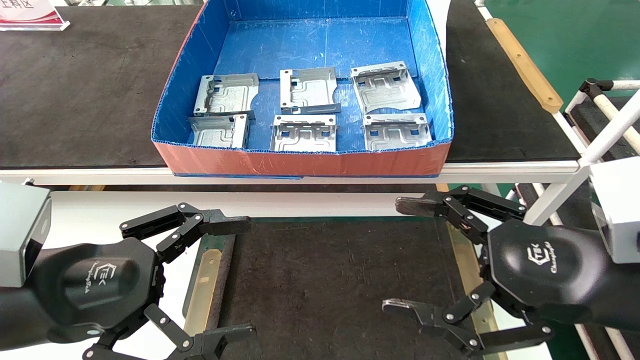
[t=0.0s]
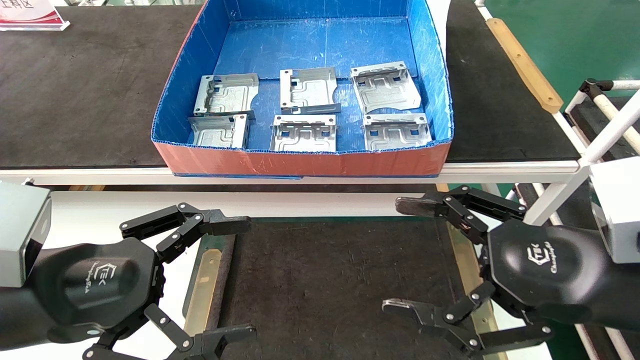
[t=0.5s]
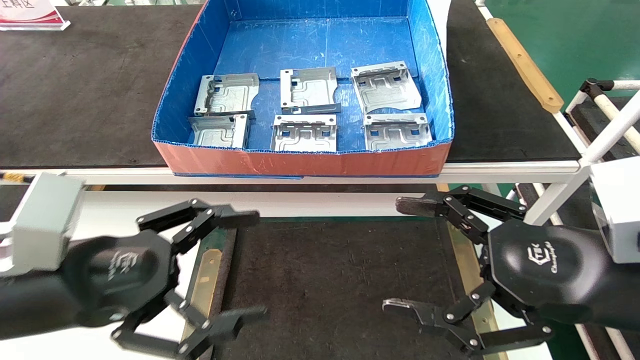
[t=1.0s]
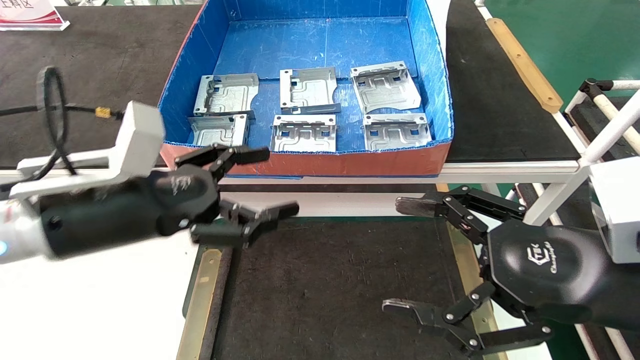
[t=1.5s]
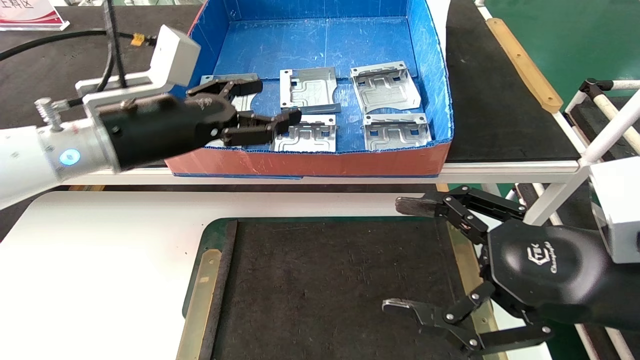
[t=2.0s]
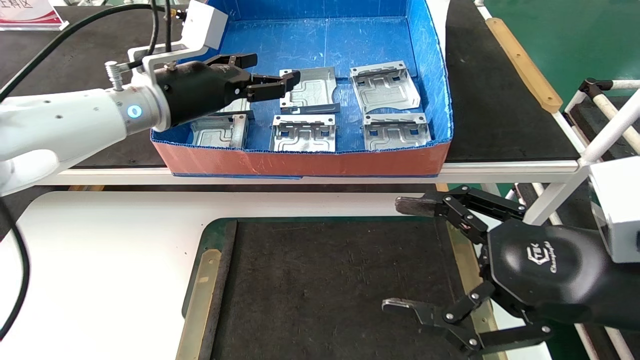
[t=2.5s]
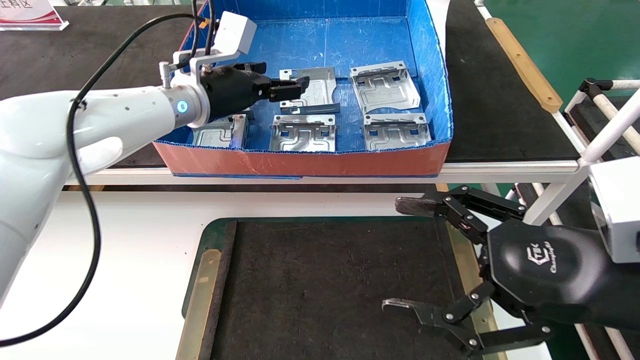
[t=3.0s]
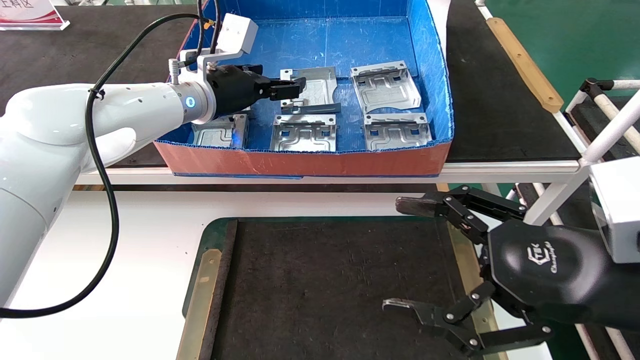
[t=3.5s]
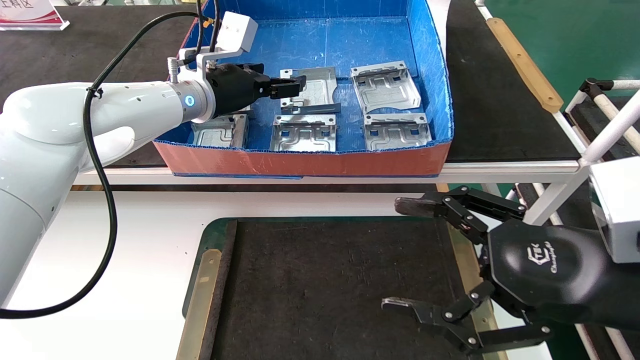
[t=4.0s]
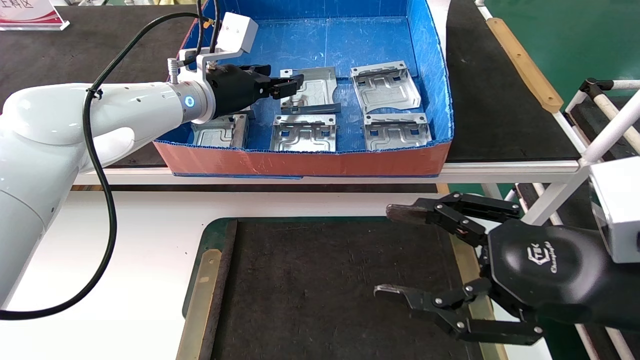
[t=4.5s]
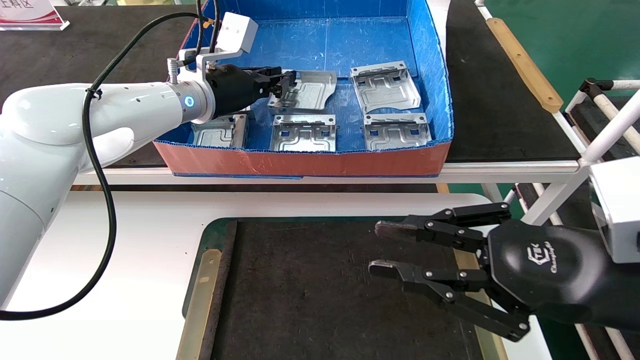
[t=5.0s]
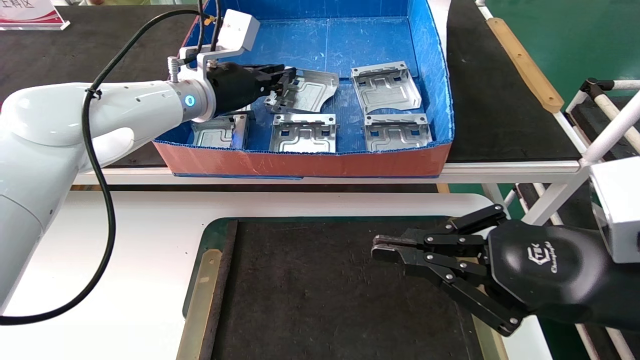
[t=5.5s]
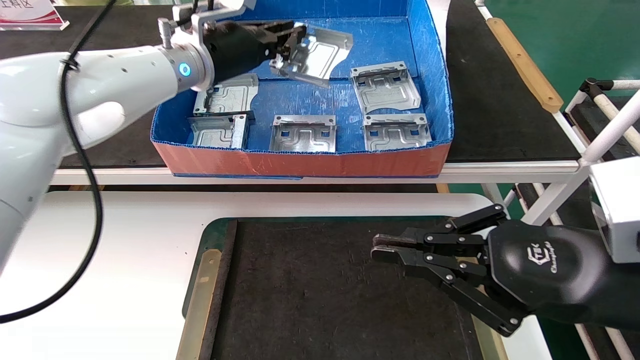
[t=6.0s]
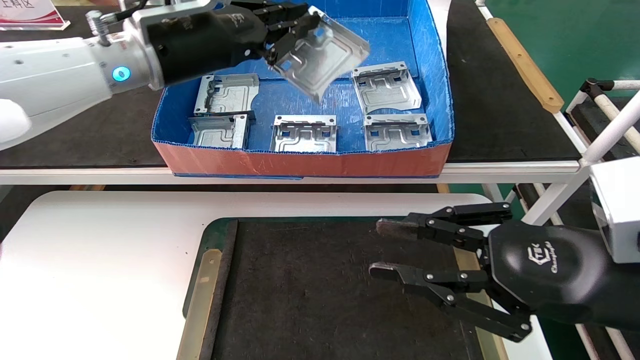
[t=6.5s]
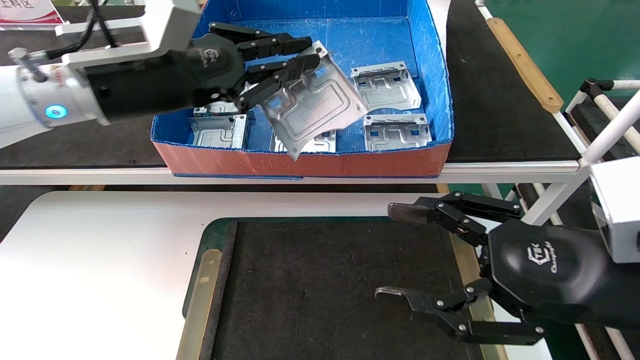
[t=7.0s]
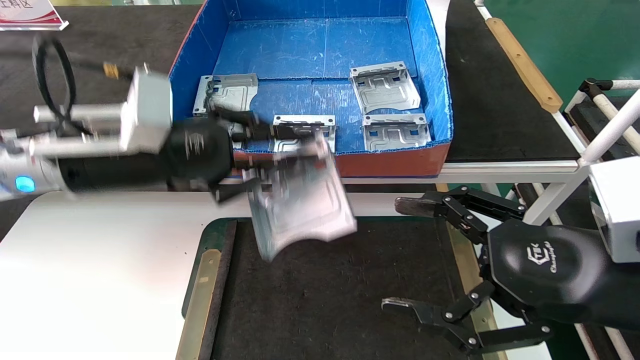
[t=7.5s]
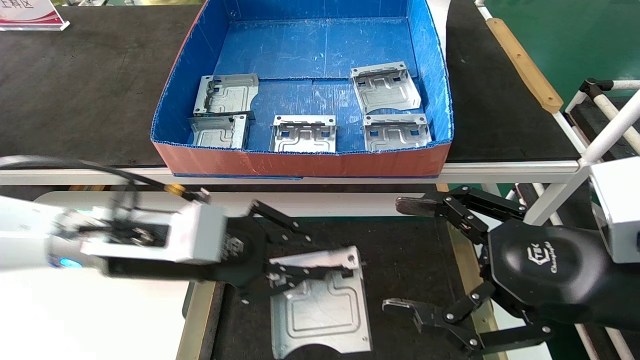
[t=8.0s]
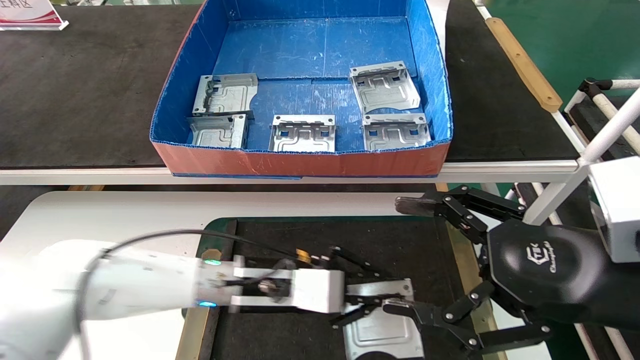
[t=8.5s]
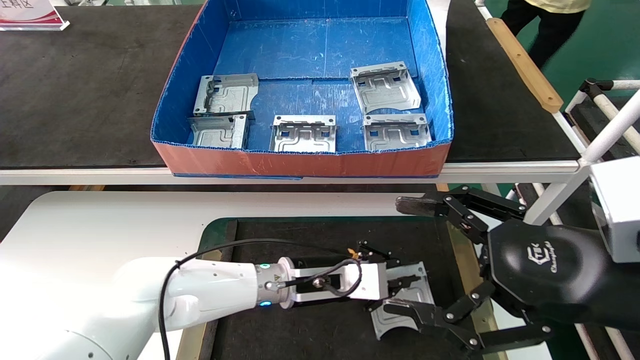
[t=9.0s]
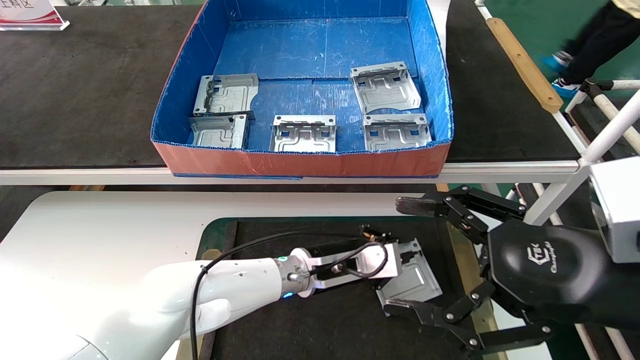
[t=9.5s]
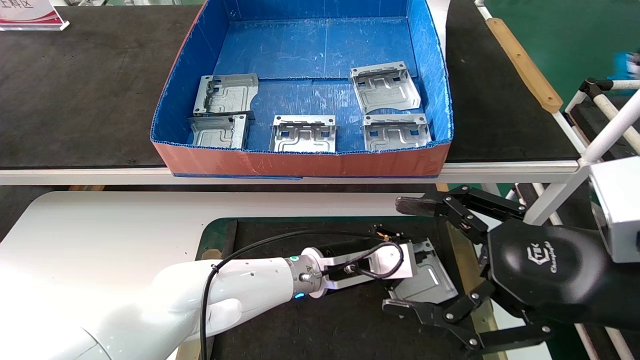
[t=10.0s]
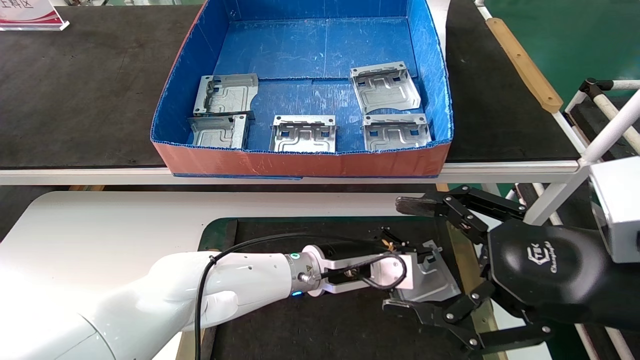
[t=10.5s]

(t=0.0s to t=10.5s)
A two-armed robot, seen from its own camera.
Task of the whole recording: take the accessories out of the box and place them on the table.
Step, t=1.5s - t=5.0s: Pick up the hard drive bracket from the feeding area.
t=0.0s - t=2.0s: The left gripper is displaced forward and upward by some 20 cm.
t=2.0s - t=4.0s: The left gripper shifts some 15 cm forward and to the right.
t=4.0s - t=6.5s: The left gripper travels backward by approximately 10 cm, and closes its fingers. The right gripper closes.
t=6.5s - t=8.5s: The left gripper goes about 25 cm downward. The right gripper opens up.
t=8.5s - t=10.5s: The left gripper moves to the right, approximately 10 cm.

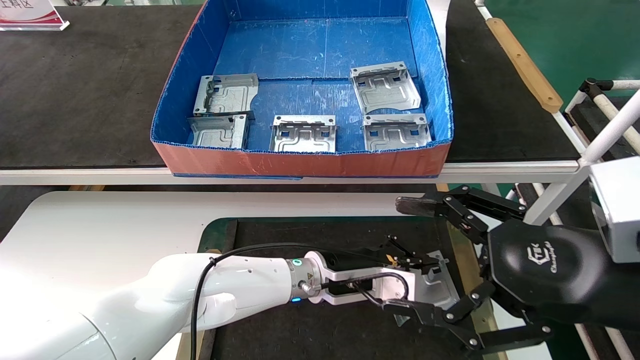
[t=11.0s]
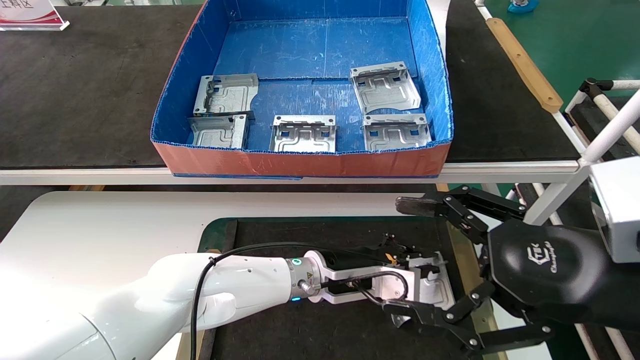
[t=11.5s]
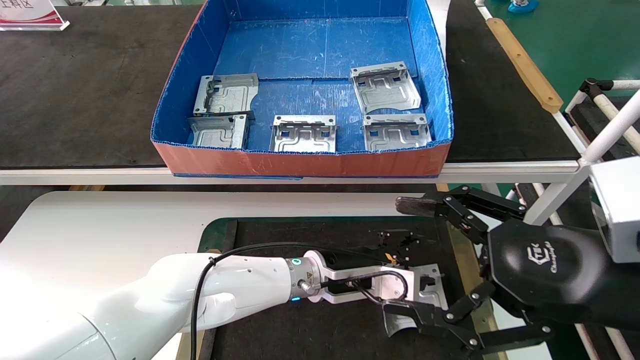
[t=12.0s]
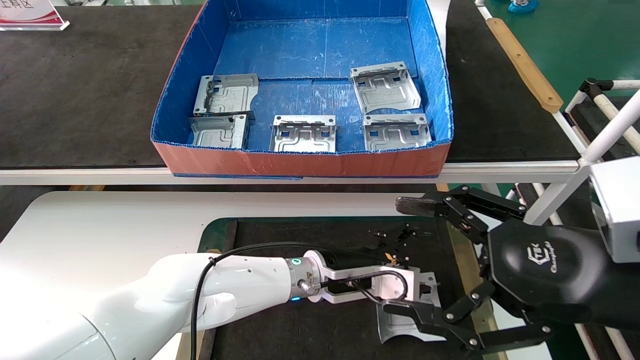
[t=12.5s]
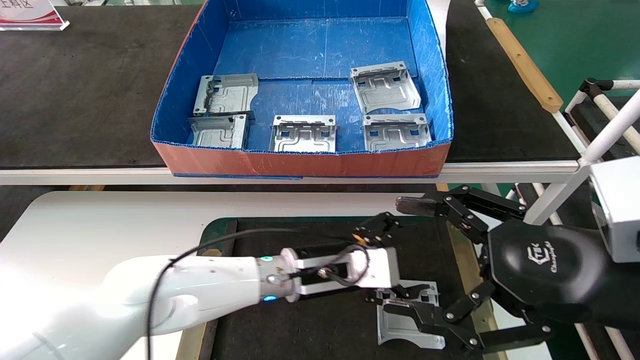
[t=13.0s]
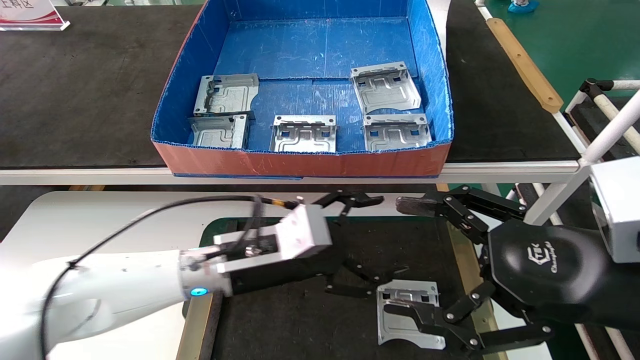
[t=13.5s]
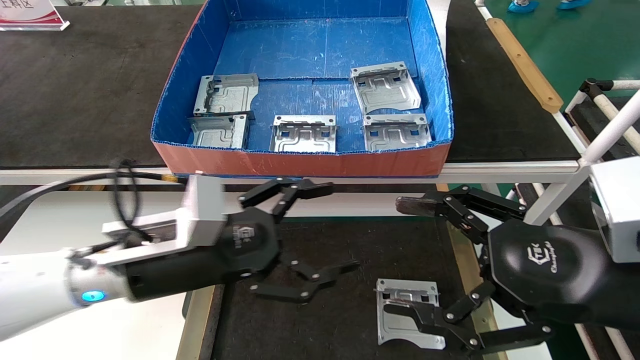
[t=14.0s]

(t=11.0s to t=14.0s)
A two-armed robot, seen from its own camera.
Task of the whole recording: take the accessories out of the box and place them on the table.
t=11.0s - t=12.5s: The left gripper opens its fingers.
t=12.5s - t=14.0s: The left gripper shifts roughly 25 cm to the left, backward and upward.

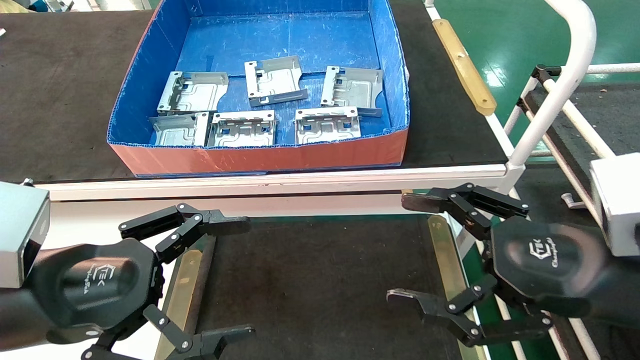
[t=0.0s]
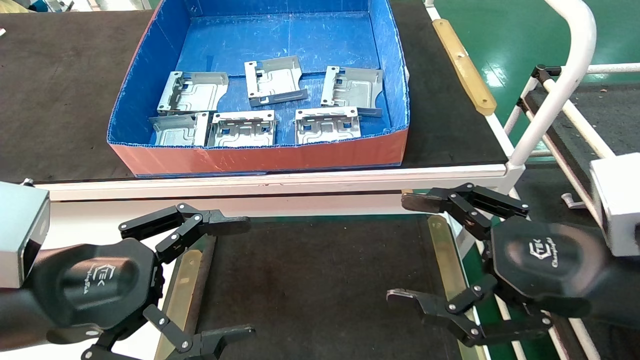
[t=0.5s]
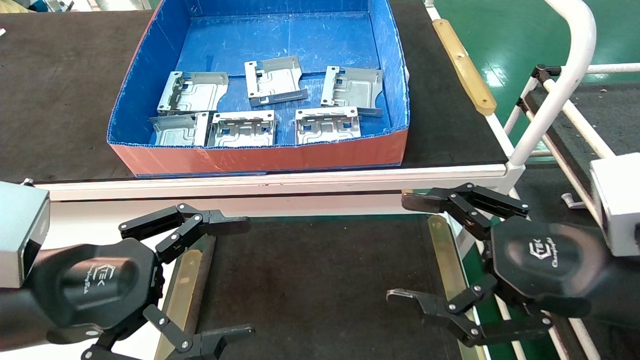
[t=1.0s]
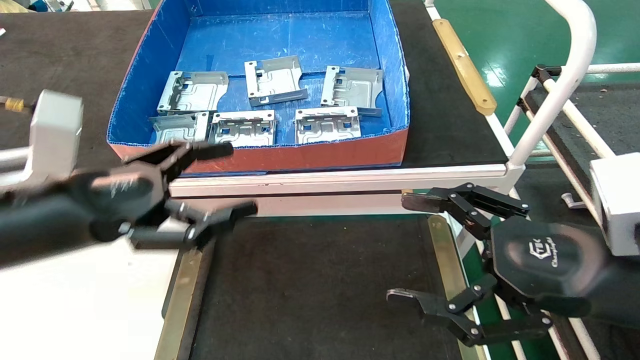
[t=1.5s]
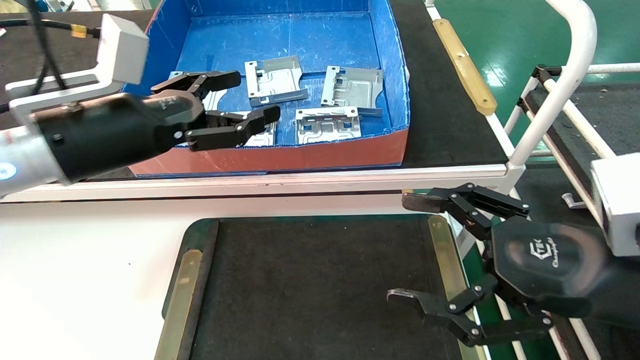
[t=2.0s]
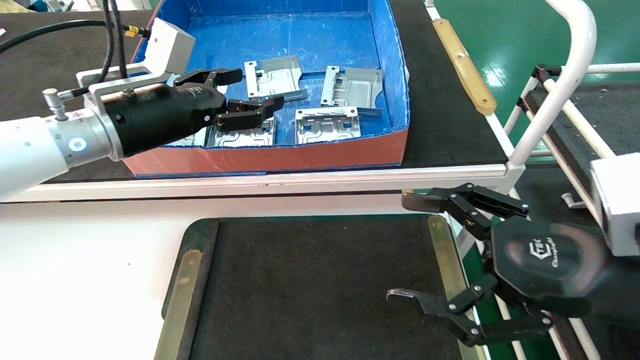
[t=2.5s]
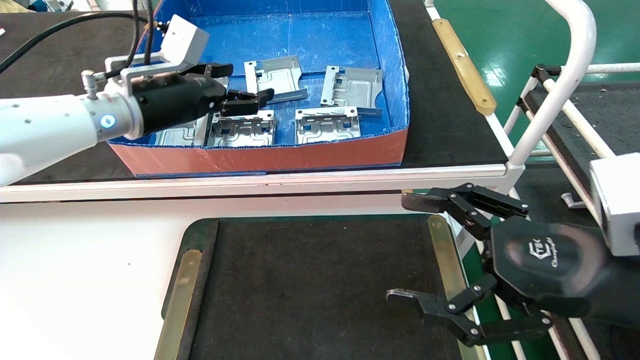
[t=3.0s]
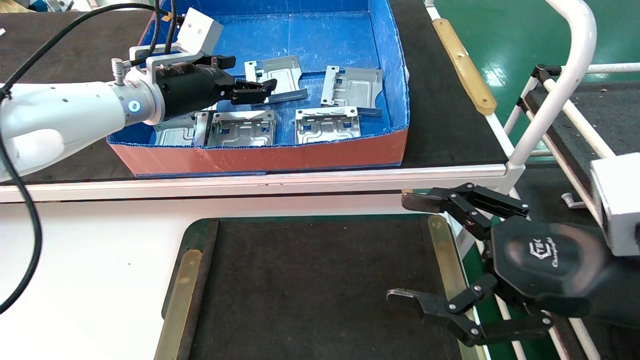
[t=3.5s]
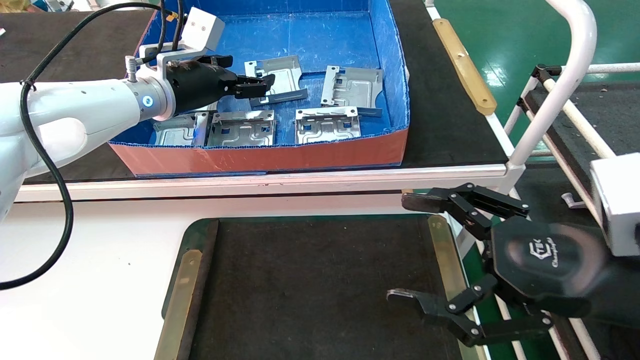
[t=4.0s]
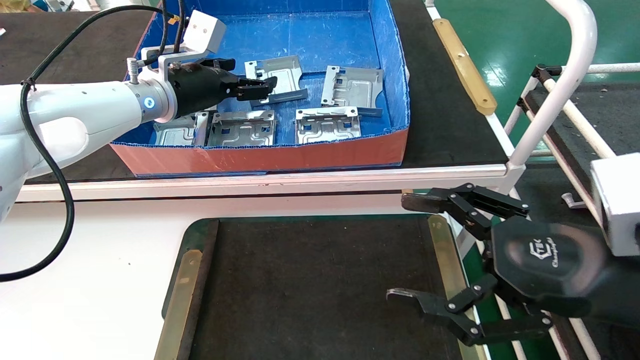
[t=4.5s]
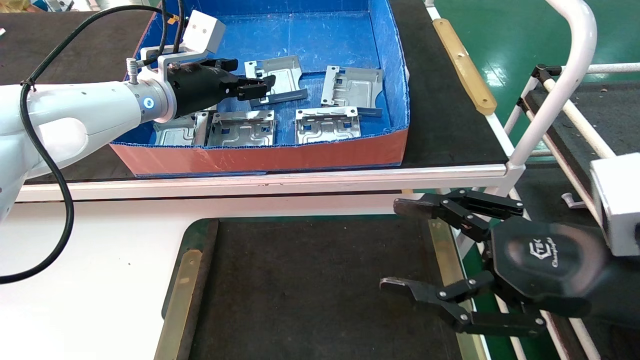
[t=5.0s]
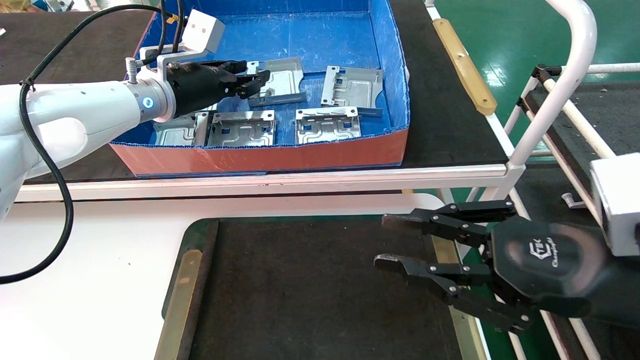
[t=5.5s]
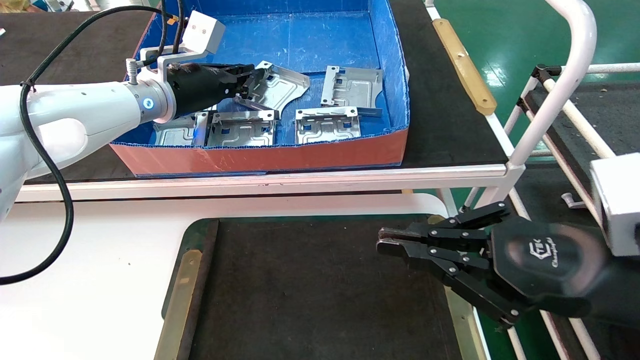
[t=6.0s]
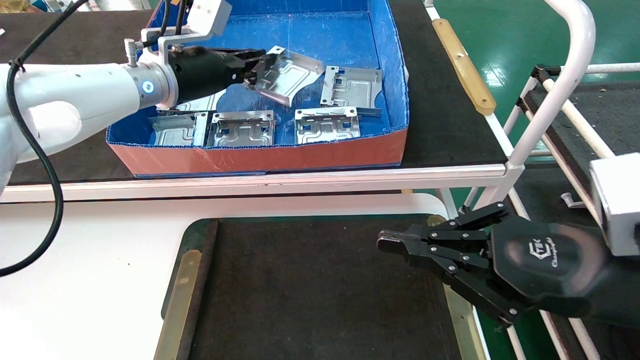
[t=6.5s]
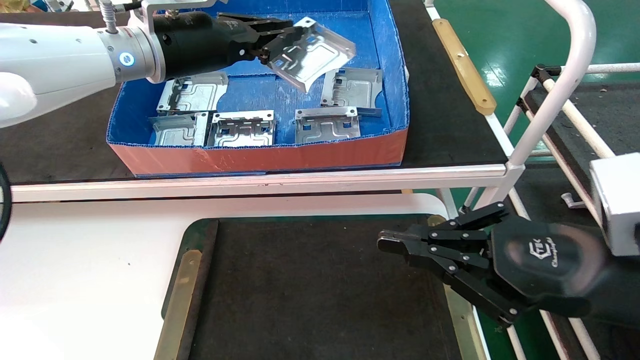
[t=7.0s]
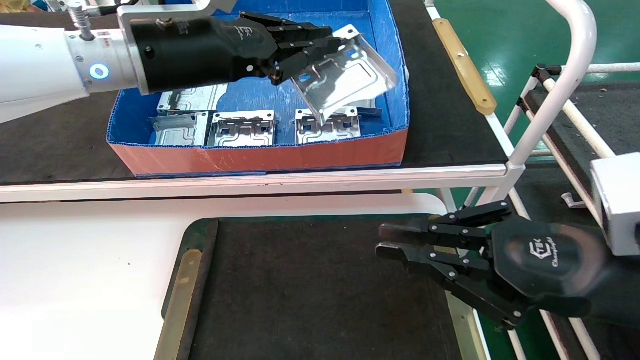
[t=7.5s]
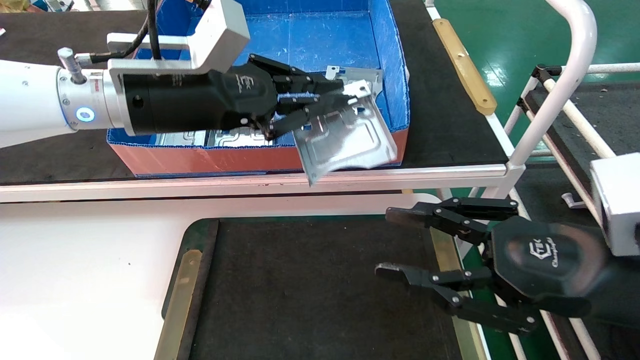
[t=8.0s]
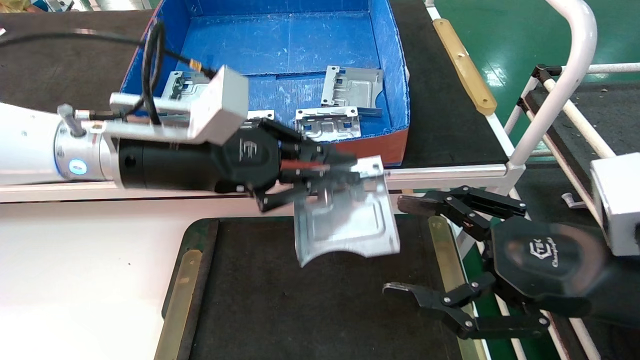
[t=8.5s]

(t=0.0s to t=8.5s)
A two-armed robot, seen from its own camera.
Task of the whole recording: take the accessories out of the box and place them on the table.
Step, t=1.5s - t=6.0s: Pick up the hard drive bracket from the feeding area.
t=0.0s - t=2.0s: The left gripper shifts some 15 cm forward and upward.
t=2.0s - t=4.0s: The left gripper travels forward by some 15 cm.
t=4.0s - t=6.5s: The left gripper closes its fingers. Meanwhile the right gripper closes up.
t=6.5s - t=8.5s: The left gripper heads backward and downward, covering approximately 15 cm. Meanwhile the right gripper opens its fingers.
